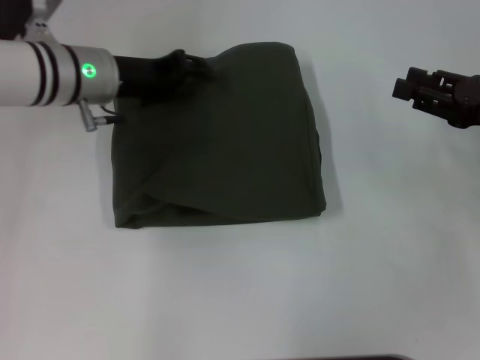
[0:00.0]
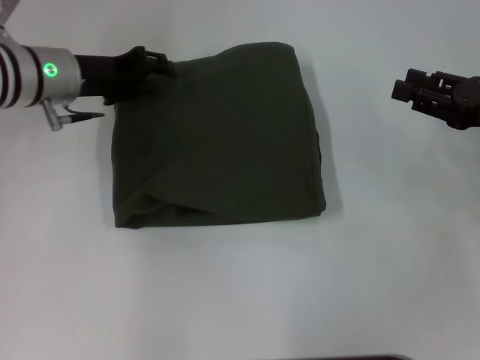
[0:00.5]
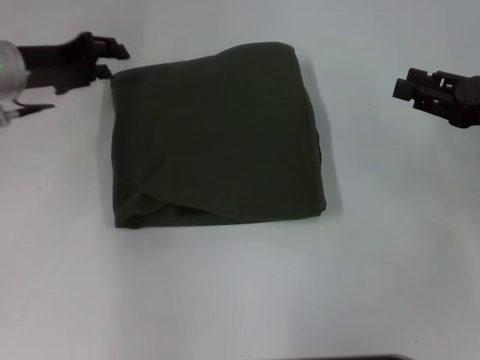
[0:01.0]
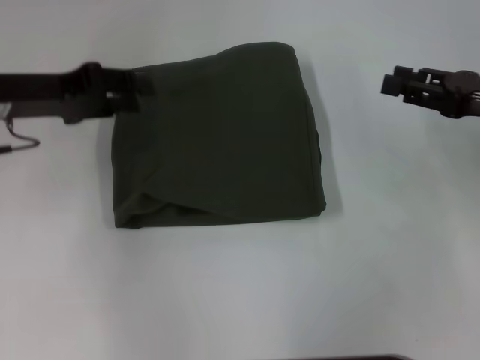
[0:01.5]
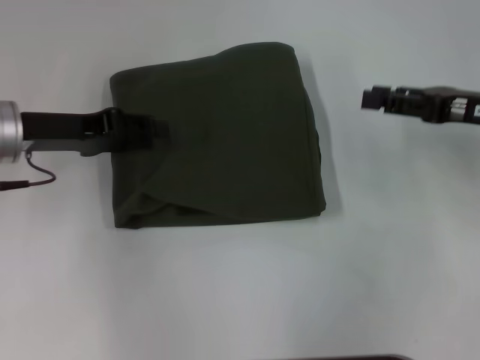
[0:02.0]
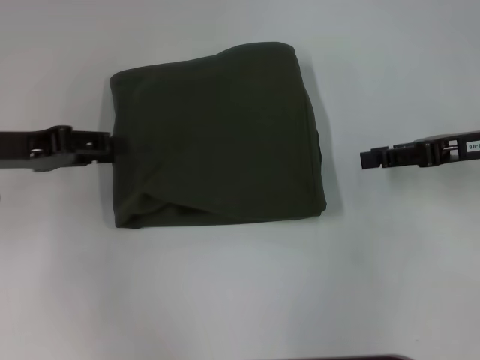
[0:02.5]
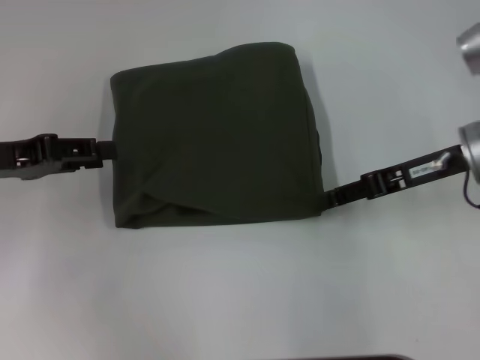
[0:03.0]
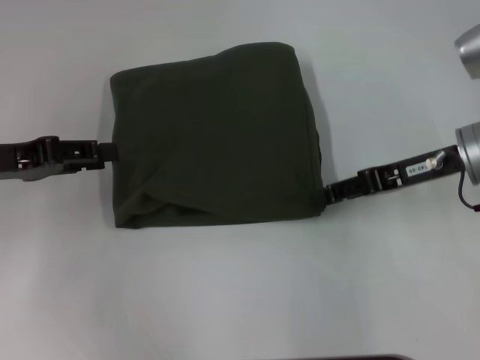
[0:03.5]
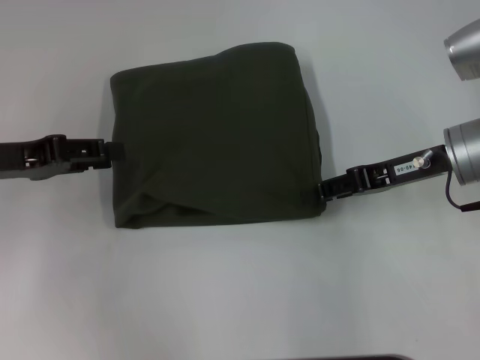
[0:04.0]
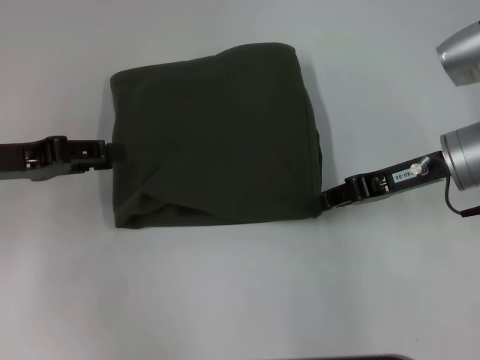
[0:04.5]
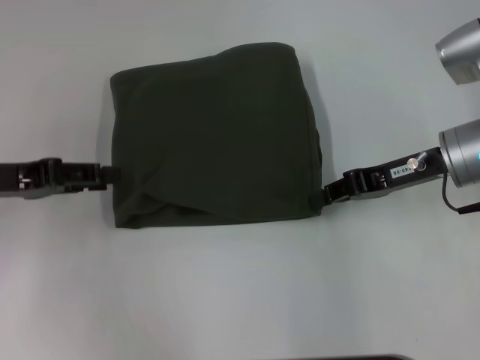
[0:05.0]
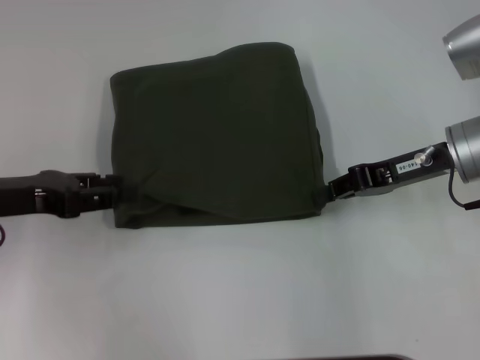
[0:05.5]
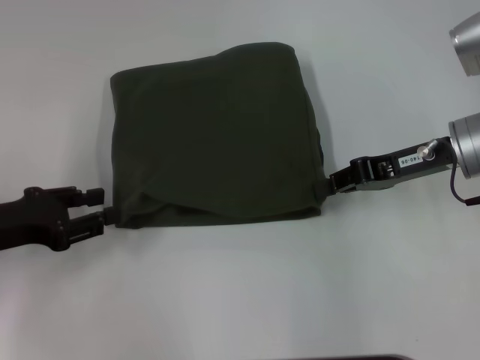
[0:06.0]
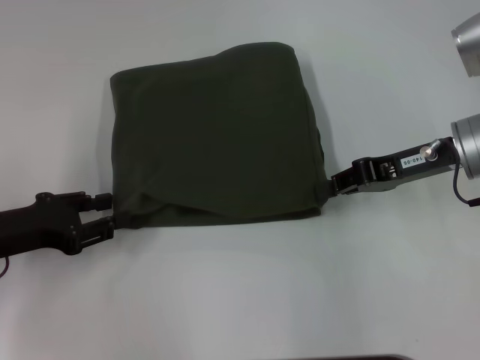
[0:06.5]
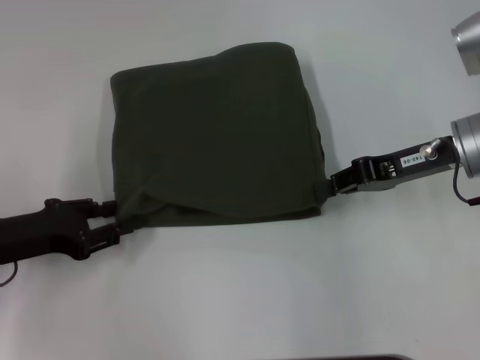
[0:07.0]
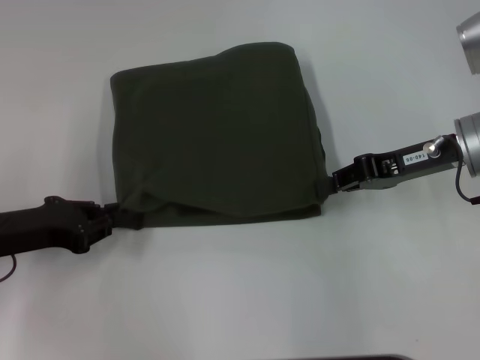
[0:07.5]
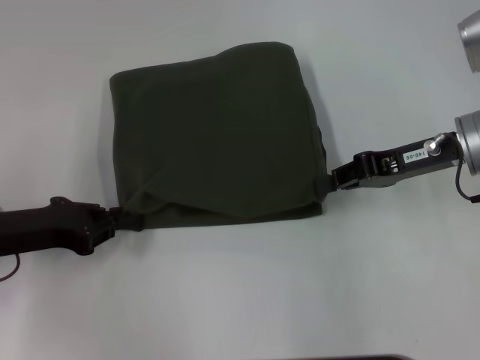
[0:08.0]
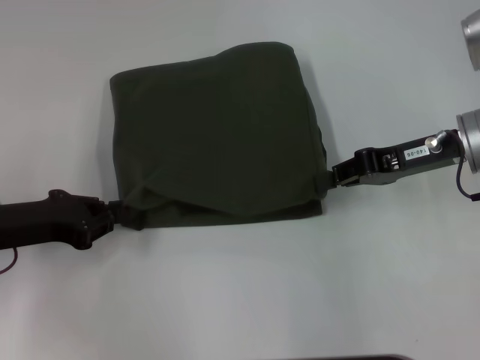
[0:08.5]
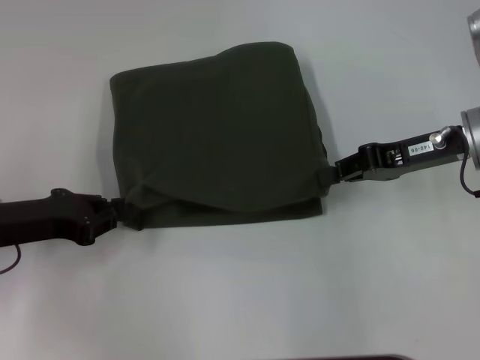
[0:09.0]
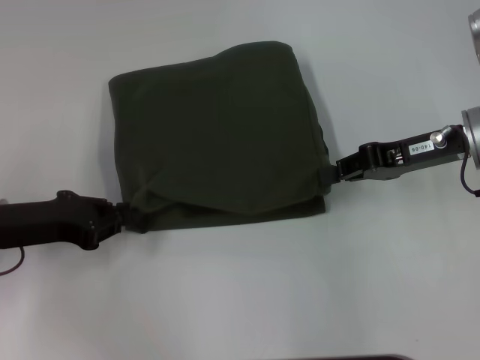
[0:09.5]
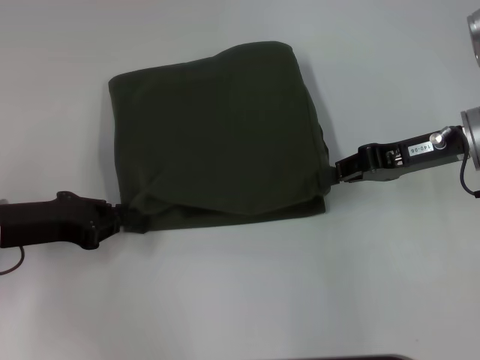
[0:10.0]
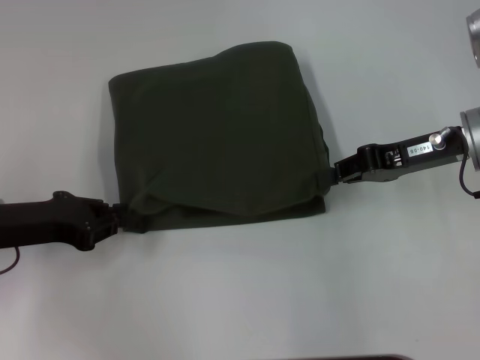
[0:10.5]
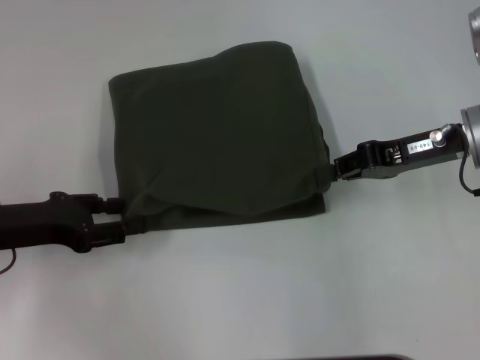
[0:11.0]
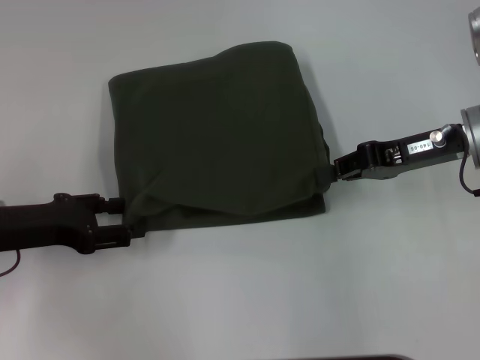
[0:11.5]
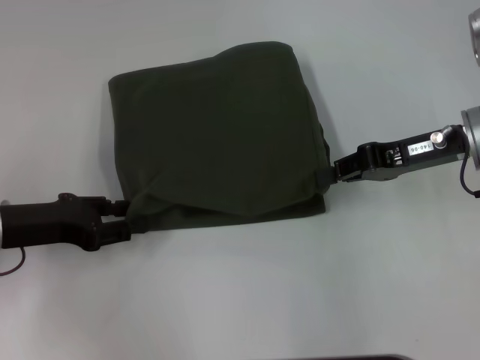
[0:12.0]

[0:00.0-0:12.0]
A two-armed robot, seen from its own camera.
0:00.0 to 0:02.0: The left gripper travels to the left and backward by approximately 10 cm.
0:02.0 to 0:04.0: The left gripper moves some 5 cm. Meanwhile the right gripper moves to the left, roughly 5 cm.
0:04.0 to 0:06.0: The right gripper closes. The left gripper travels backward by roughly 5 cm.
0:06.0 to 0:08.0: The left gripper closes its fingers.
0:08.0 to 0:10.0: Neither gripper changes place.
0:10.0 to 0:12.0: The left gripper opens its fingers.

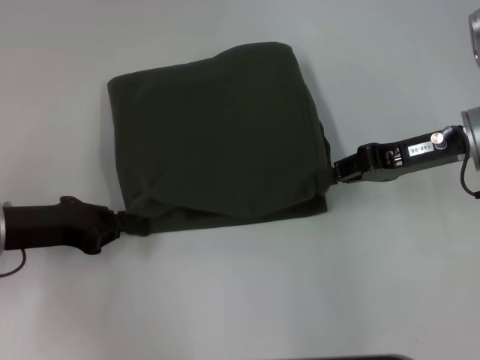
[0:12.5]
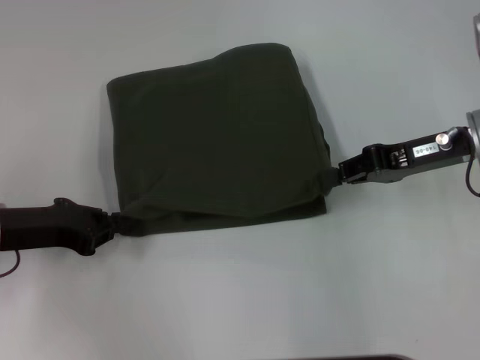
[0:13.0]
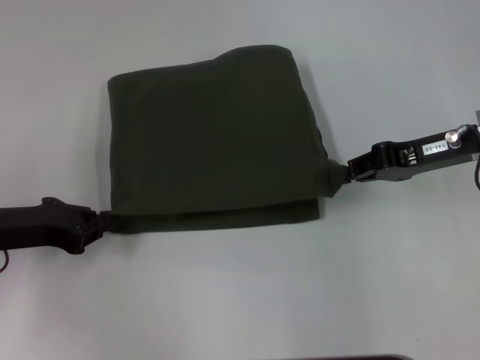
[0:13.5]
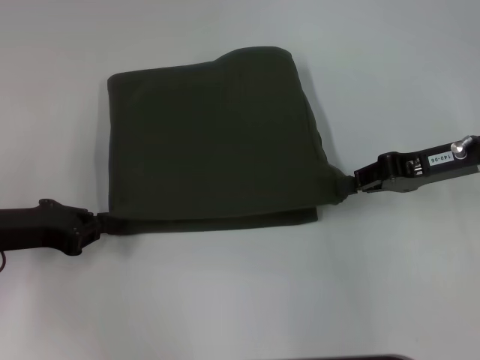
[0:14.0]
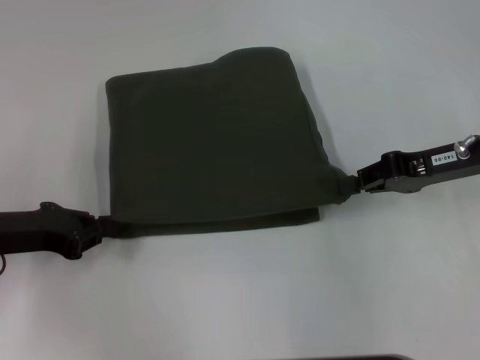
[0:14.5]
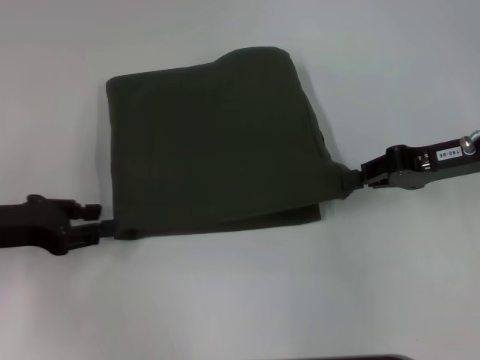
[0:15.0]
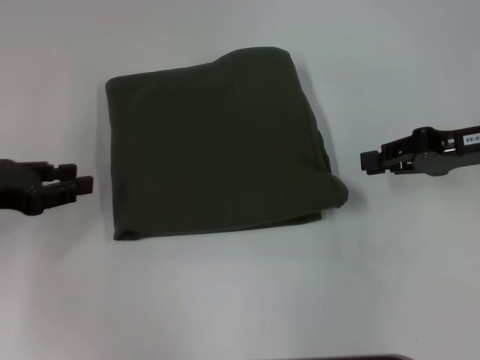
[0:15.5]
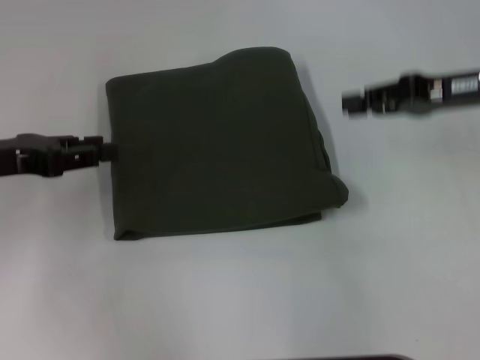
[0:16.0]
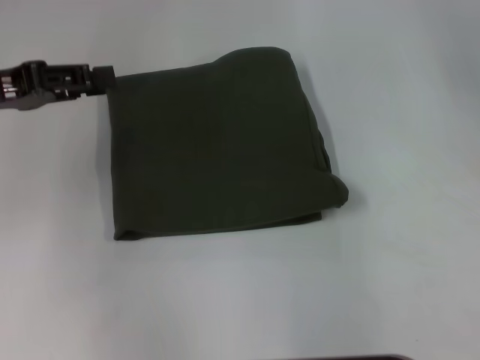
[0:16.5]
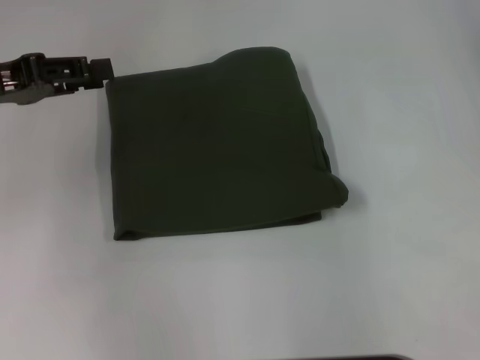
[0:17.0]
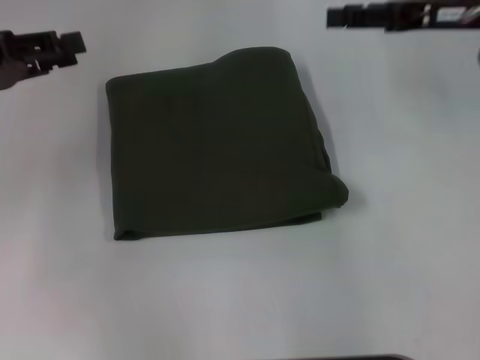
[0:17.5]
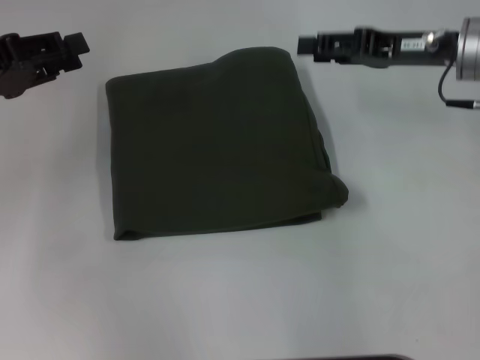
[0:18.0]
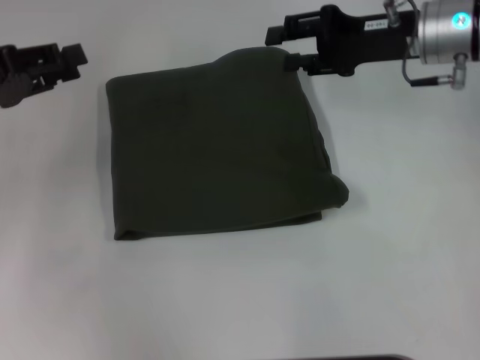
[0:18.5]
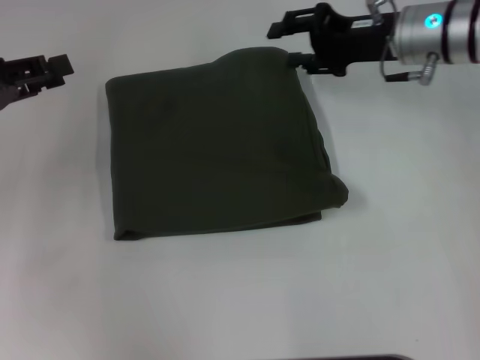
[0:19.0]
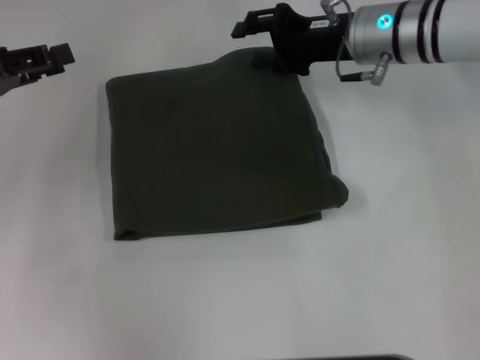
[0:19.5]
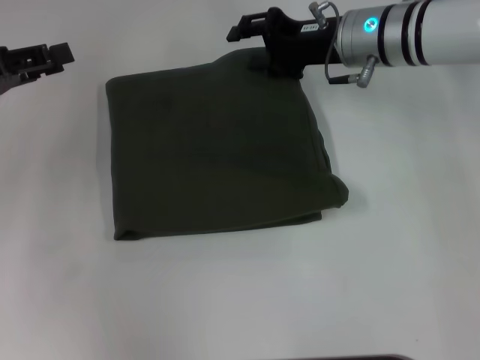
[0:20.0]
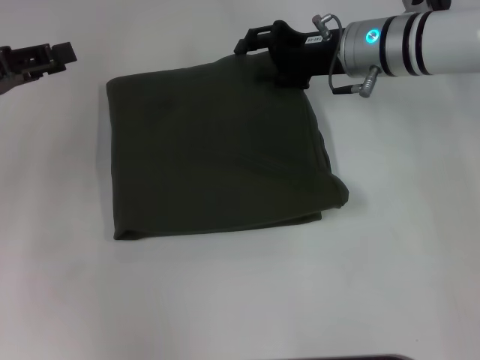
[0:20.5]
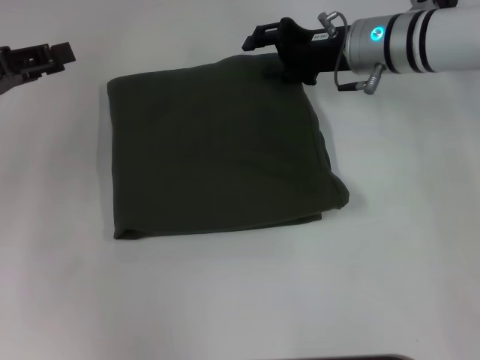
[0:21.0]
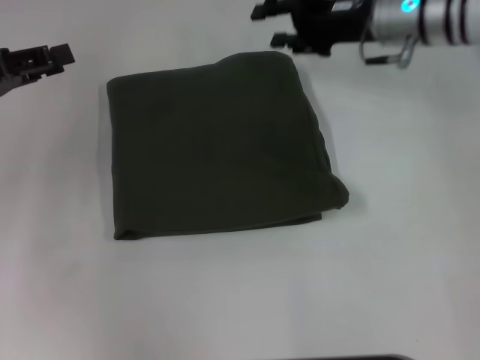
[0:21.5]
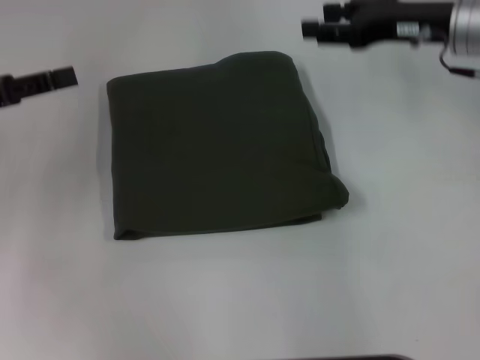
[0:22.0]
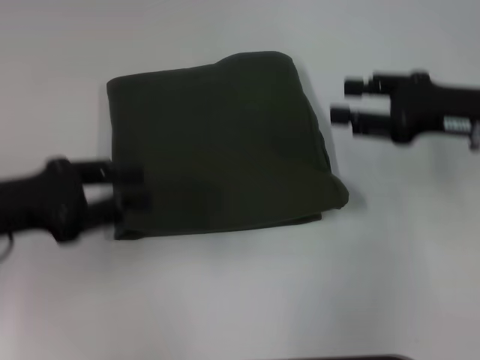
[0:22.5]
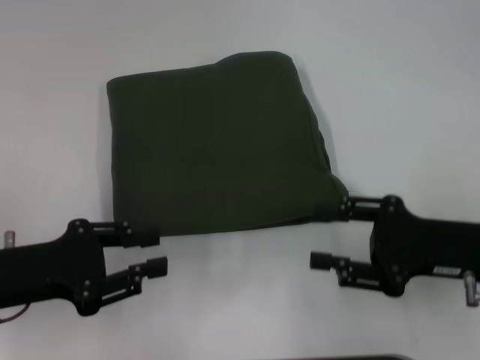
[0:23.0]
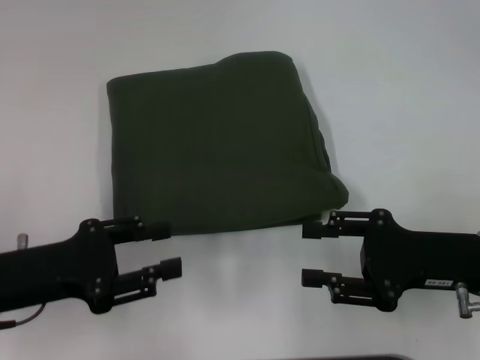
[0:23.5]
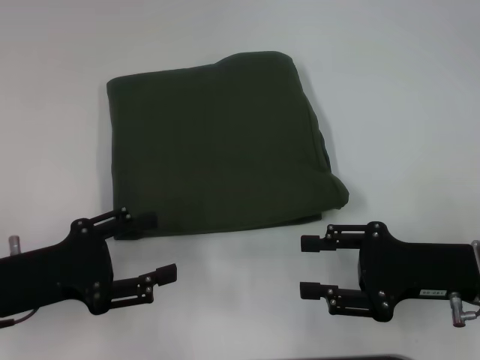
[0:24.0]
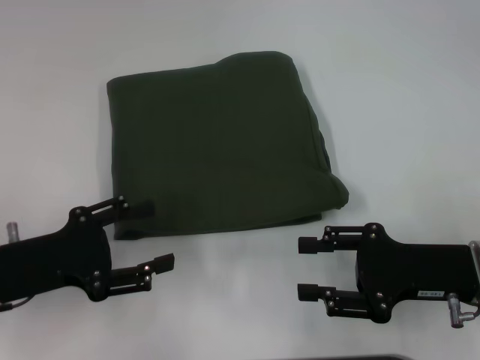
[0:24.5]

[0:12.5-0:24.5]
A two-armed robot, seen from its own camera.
0:12.5 to 0:14.5: The grippers make only small movements.
0:14.5 to 0:16.5: The grippers both shift upward and forward by approximately 10 cm. The right gripper opens. Meanwhile the left gripper opens its fingers.
0:16.5 to 0:18.5: The right gripper is displaced to the left and downward by about 10 cm.
0:18.5 to 0:20.5: The right gripper travels to the left by approximately 5 cm.
0:20.5 to 0:22.5: The left gripper shifts roughly 10 cm backward. The right gripper goes some 15 cm to the right and backward.
0:22.5 to 0:24.5: The right gripper goes some 10 cm backward and downward; the left gripper ends up roughly 5 cm from where it was, and opens.

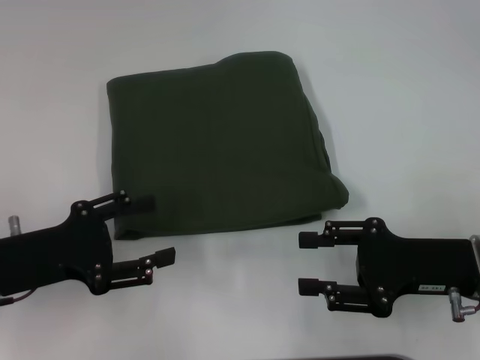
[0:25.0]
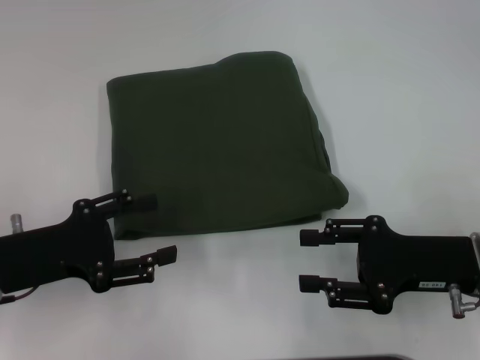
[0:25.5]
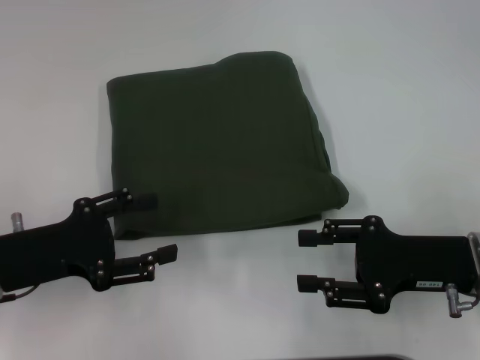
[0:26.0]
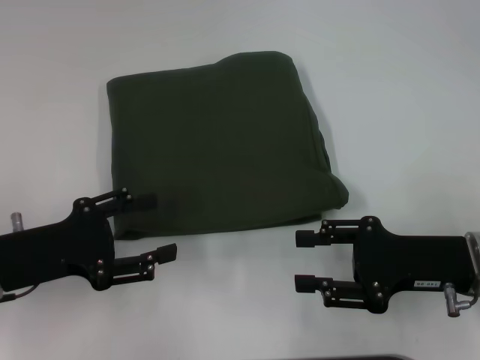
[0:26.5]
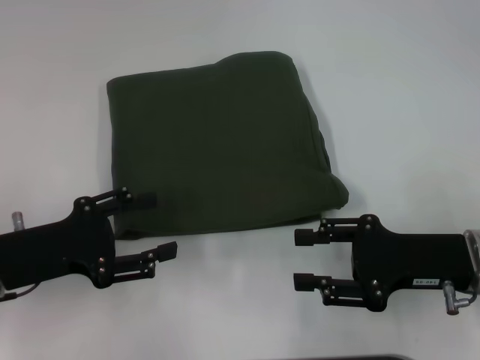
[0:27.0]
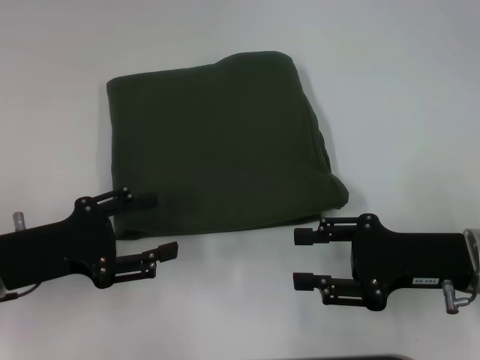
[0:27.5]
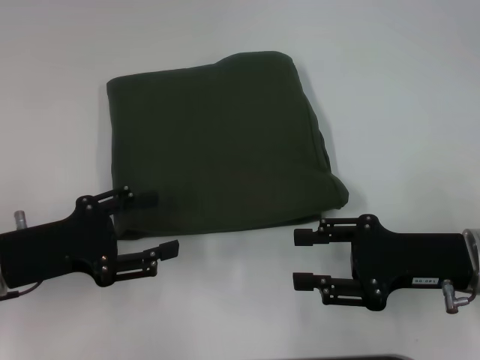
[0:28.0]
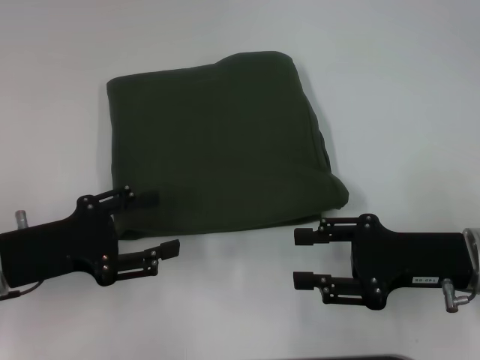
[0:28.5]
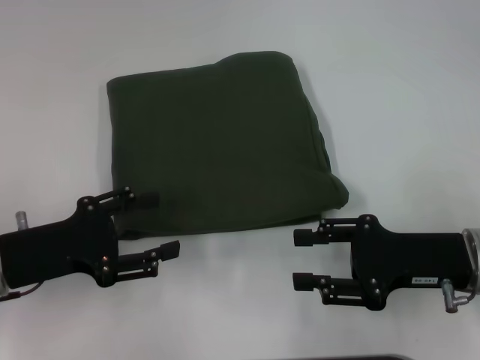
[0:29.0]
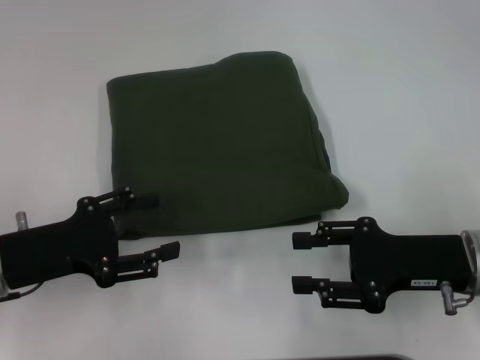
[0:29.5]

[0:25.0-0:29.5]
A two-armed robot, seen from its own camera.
0:25.0 to 0:29.5: Neither gripper changes place.
